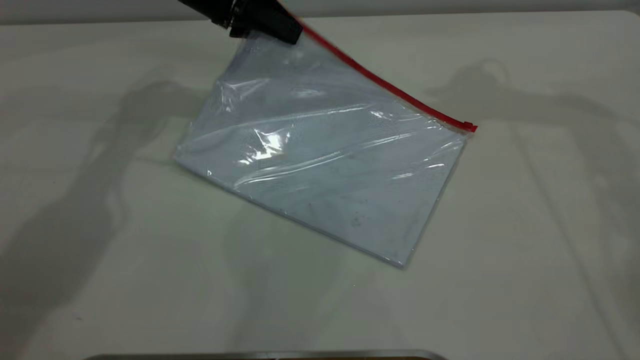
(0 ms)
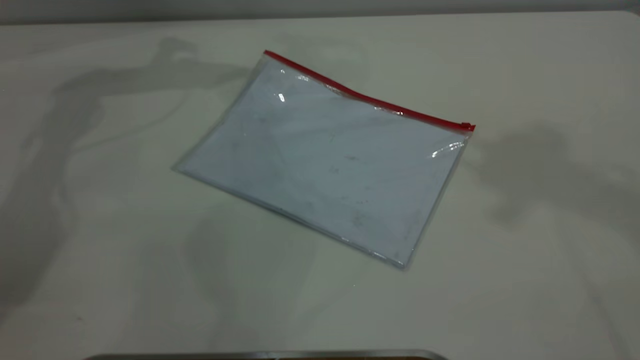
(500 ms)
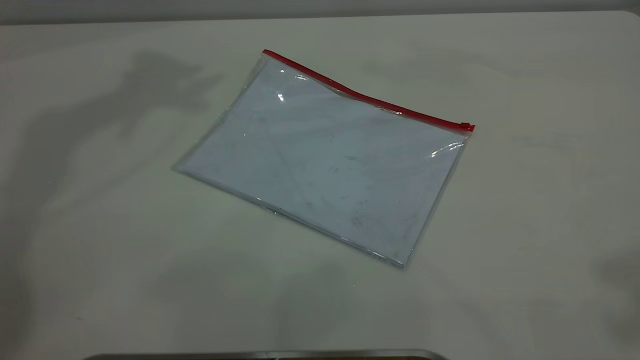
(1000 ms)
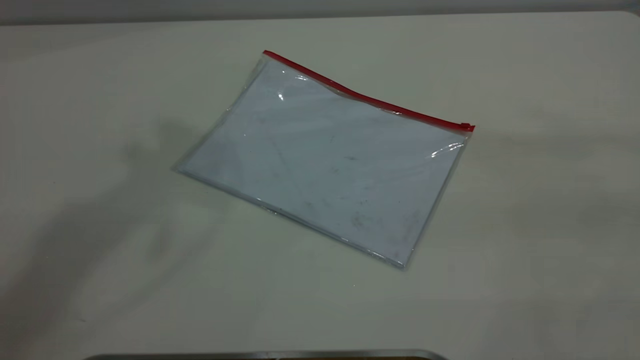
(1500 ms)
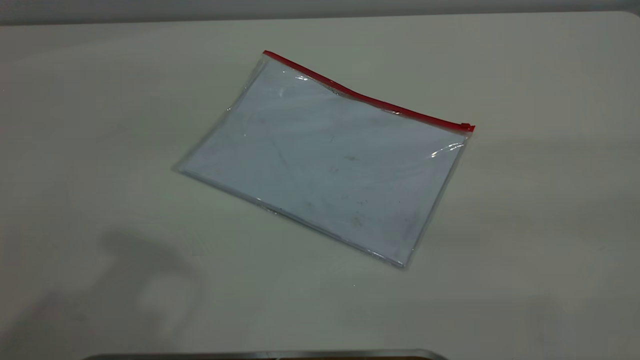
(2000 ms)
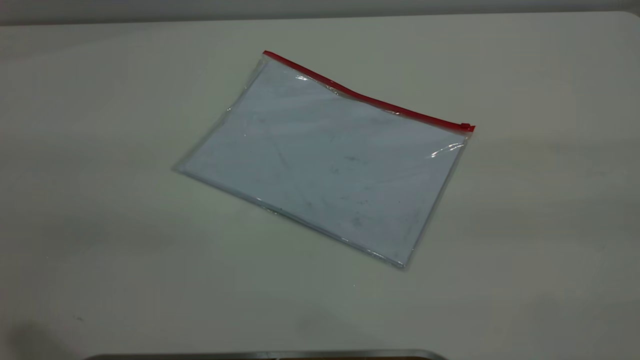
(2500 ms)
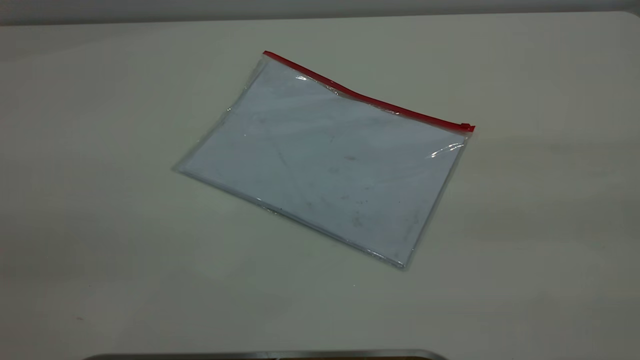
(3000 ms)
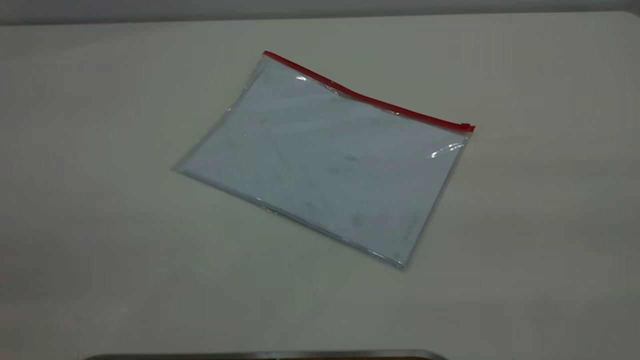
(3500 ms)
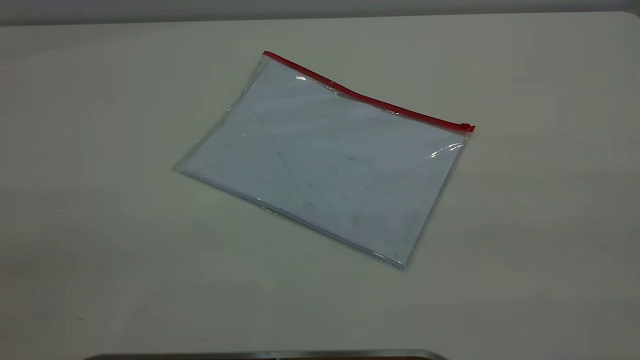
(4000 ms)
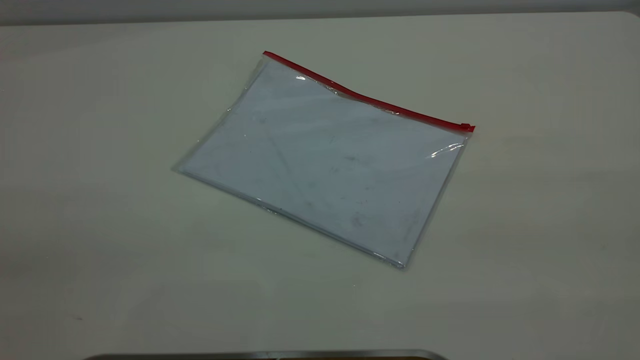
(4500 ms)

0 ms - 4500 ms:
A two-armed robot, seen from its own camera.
0 ms - 2000 ms: The right gripper heads backward, covering roughly 40 cm. The left gripper shifts roughly 40 cm backward and upward.
